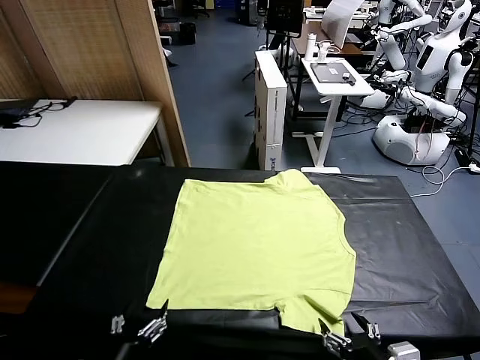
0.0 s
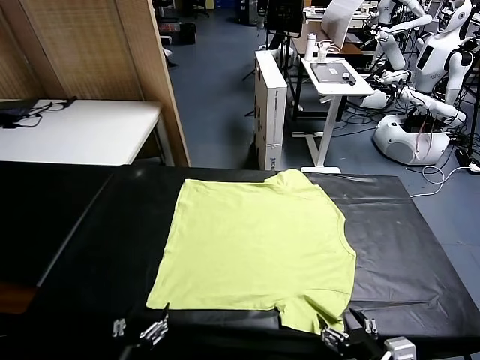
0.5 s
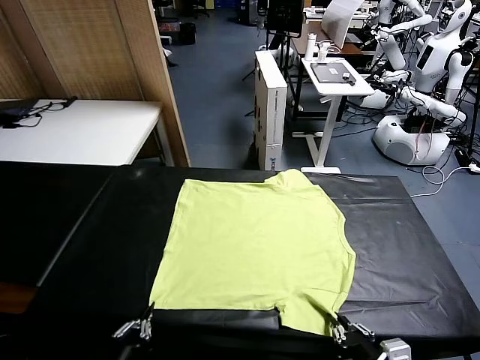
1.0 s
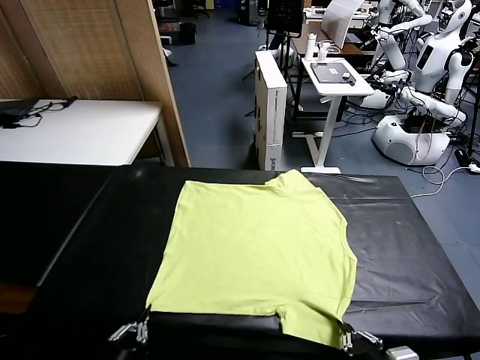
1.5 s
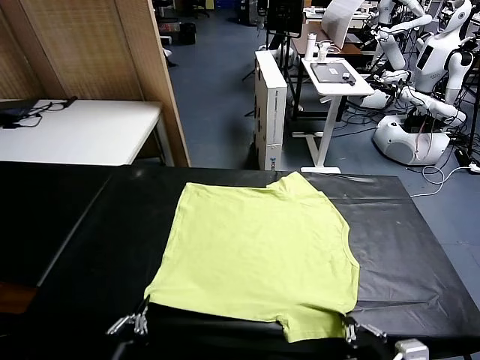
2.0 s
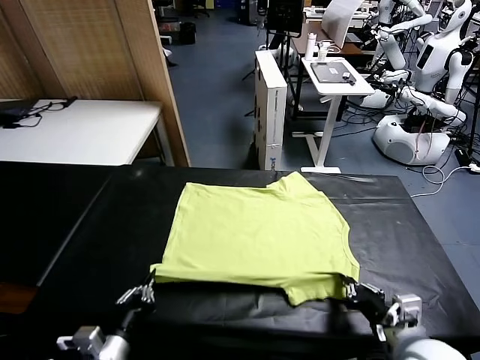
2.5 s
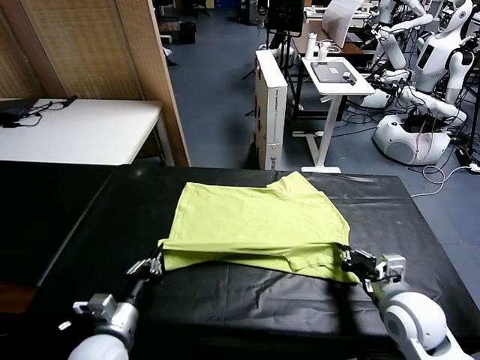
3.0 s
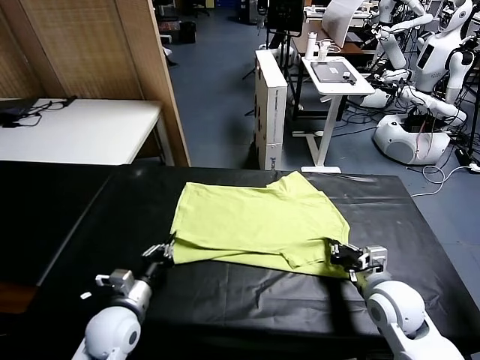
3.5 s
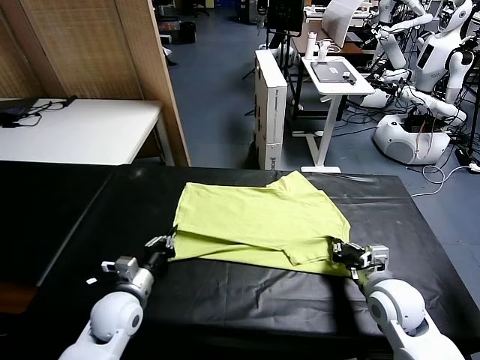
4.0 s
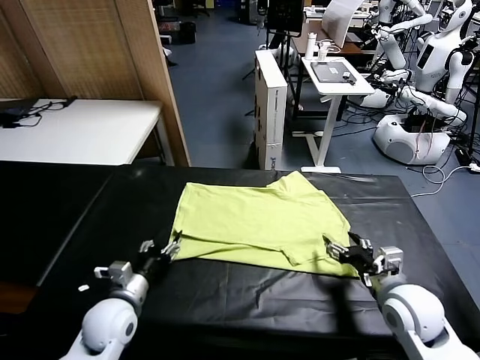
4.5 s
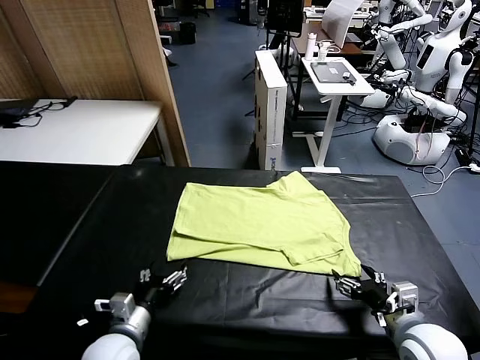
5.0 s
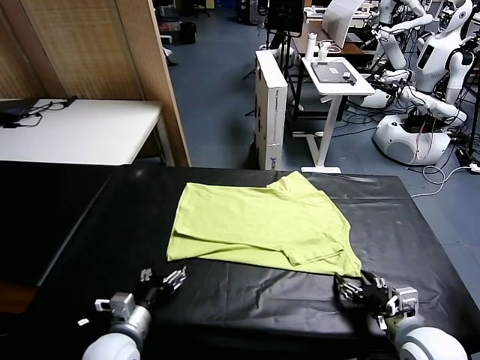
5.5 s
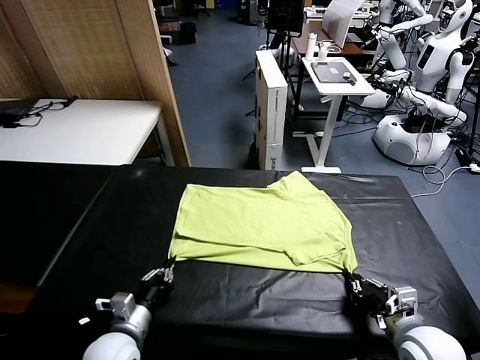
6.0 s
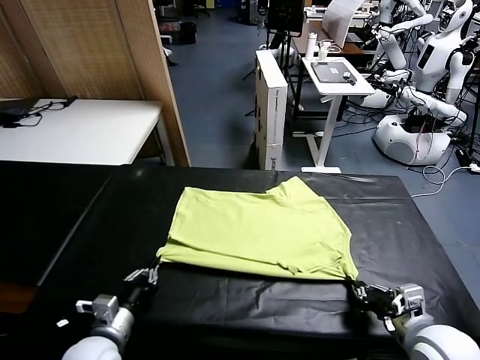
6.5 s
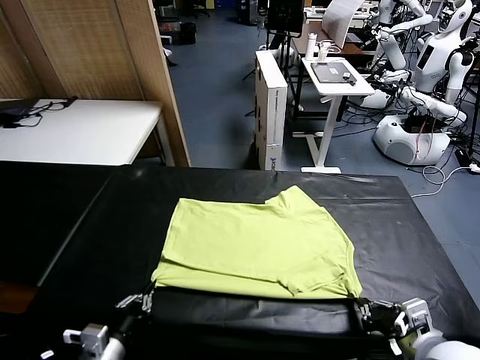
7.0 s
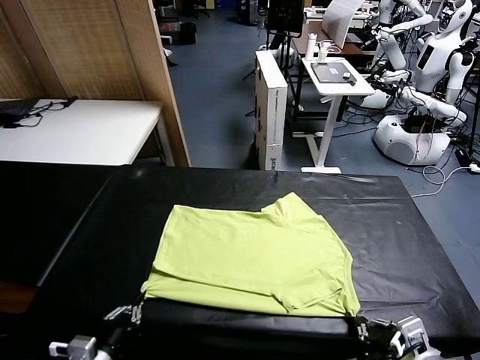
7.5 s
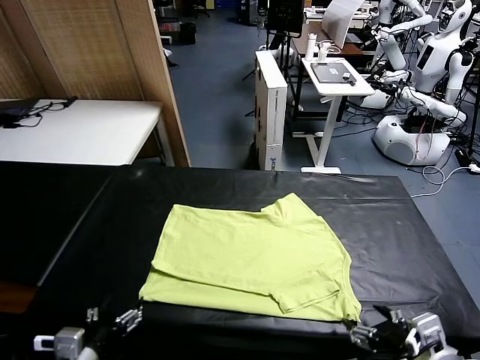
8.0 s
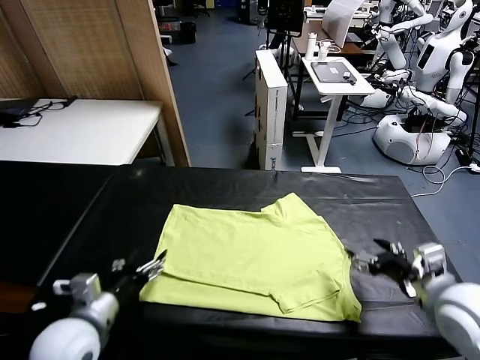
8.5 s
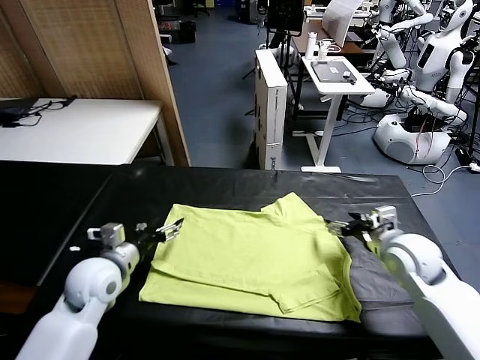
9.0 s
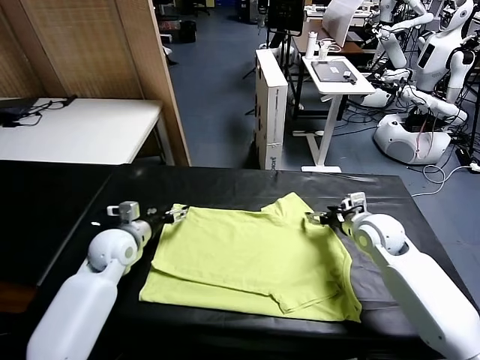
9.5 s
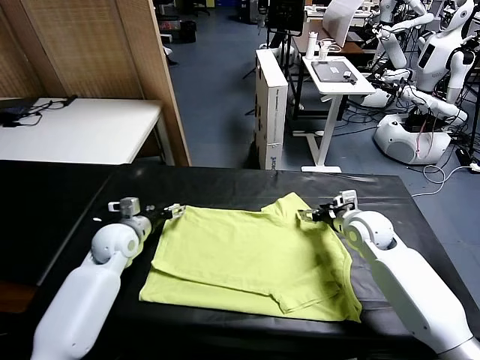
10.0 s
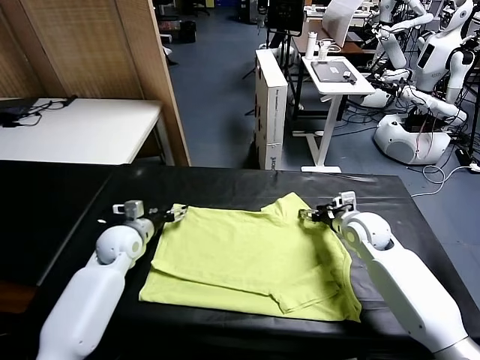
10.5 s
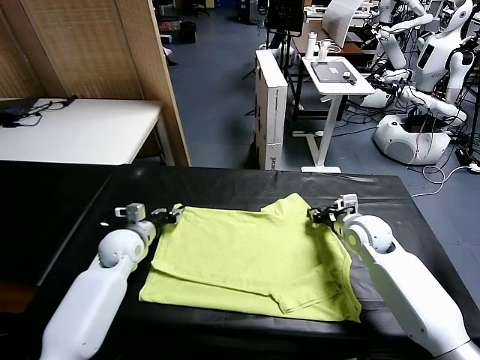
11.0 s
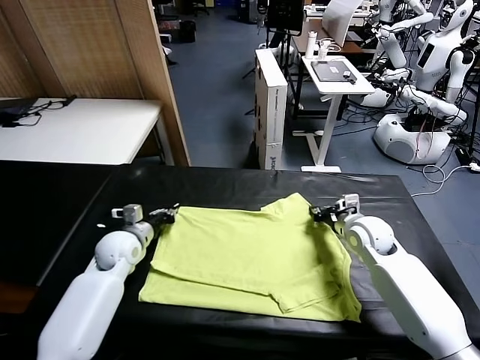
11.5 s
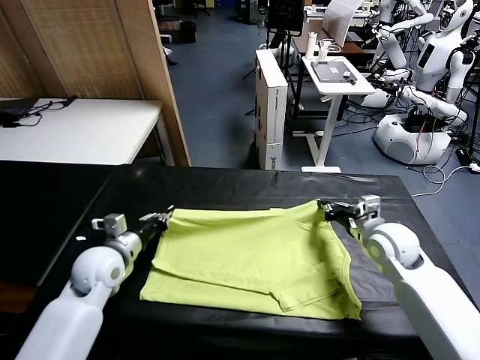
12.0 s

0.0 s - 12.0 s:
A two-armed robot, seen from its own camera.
Task of the whole recording: fold and organize the clothes.
Step, 0.0 s - 1.0 s: use both grippers simultaneously to clamp the lower edge of the clothing fabric.
Step, 1.5 s - 4.5 s: use both grippers to drag the lower edge of the fabric forward and fold it over the upper edge.
Step, 5.0 s - 8.0 s: Drag the clothes downward with both gripper.
Step, 8.5 s - 11.0 s: use both grippers simultaneously to clamp the upper edge of the clothing fabric.
2.0 s - 4.0 s: The two grippers go roughly 15 cm forward. The right gripper opens its fingers.
4.0 s - 6.0 s: Both grippers move backward, some 10 cm. The left gripper opens and closes again. The right gripper closes its fingers.
6.0 s - 8.0 s: The left gripper is displaced upward and backward by about 10 cm, and opens; the right gripper travels upward by roughly 10 cm, and opens its fingers.
8.0 s - 10.0 s: The grippers both shift forward by approximately 30 cm.
10.0 s - 12.0 s: The grippers both shift backward by roughly 10 cm. The right gripper closes up. The left gripper closes.

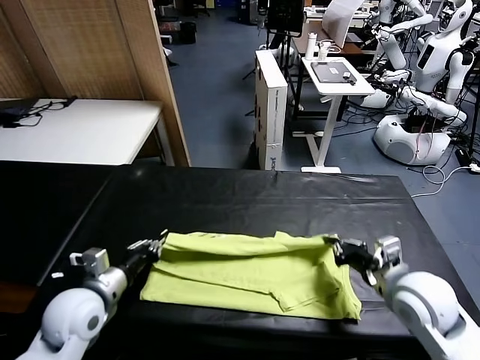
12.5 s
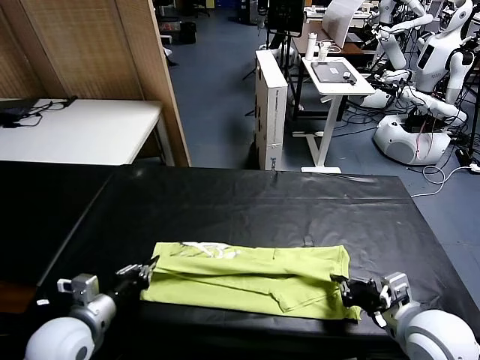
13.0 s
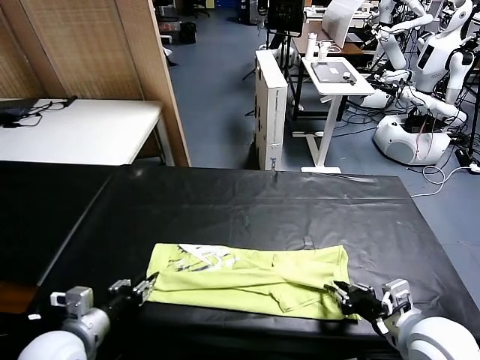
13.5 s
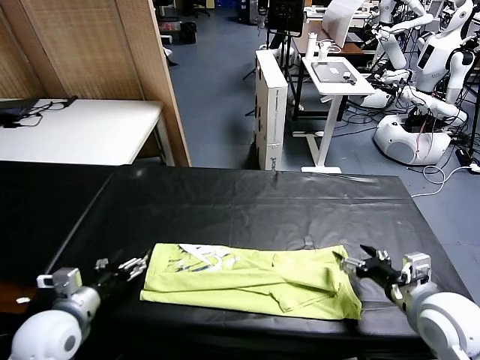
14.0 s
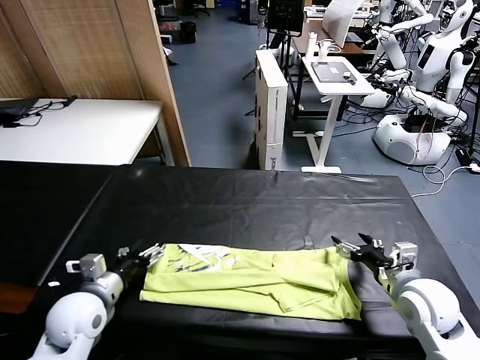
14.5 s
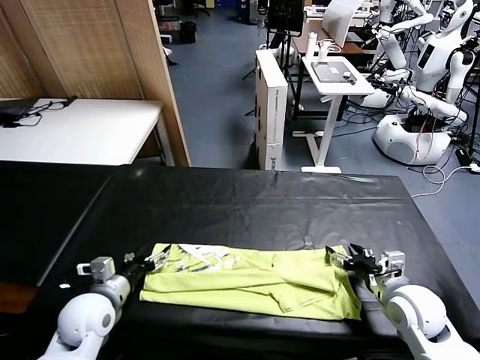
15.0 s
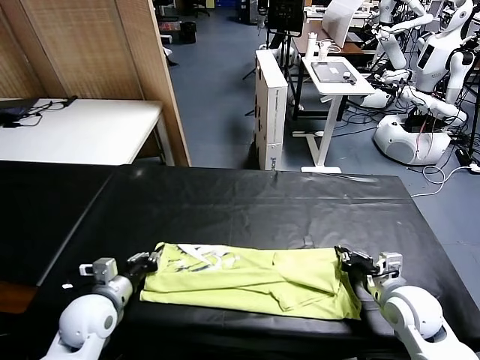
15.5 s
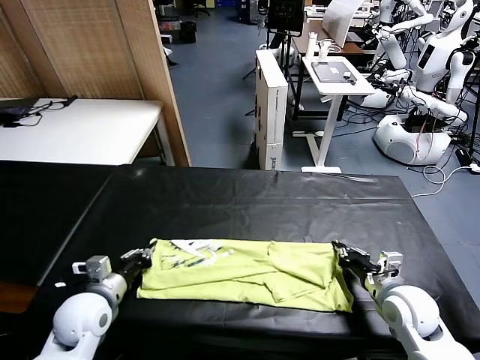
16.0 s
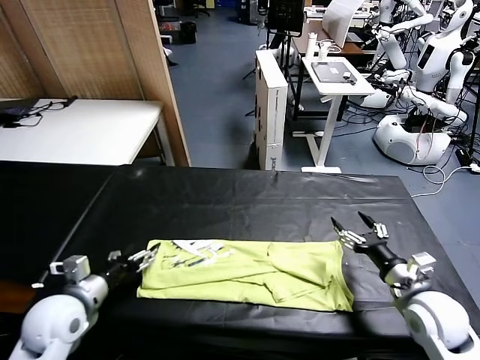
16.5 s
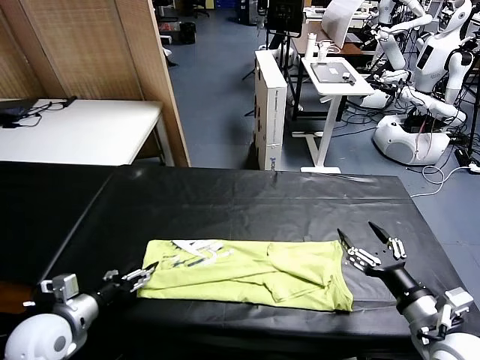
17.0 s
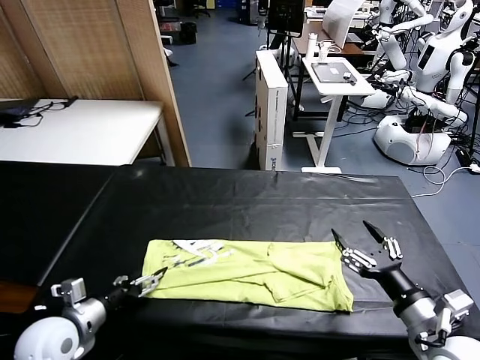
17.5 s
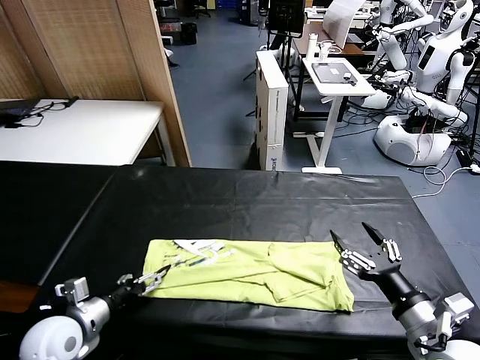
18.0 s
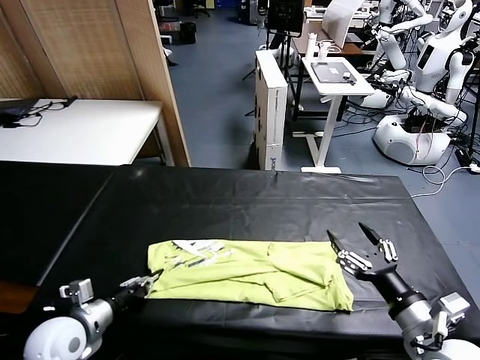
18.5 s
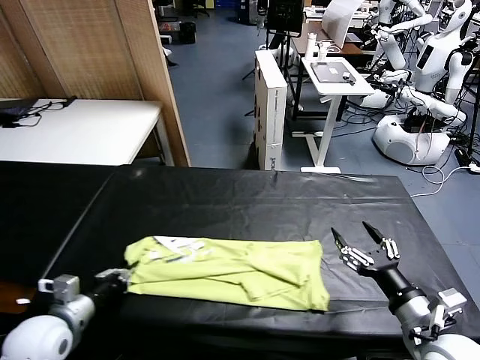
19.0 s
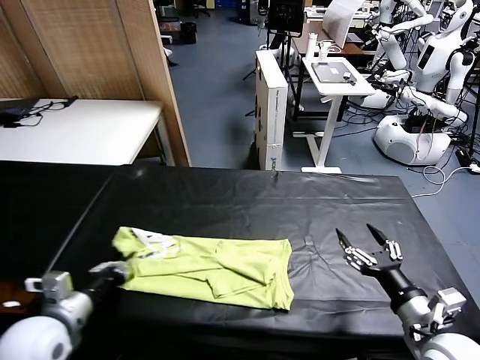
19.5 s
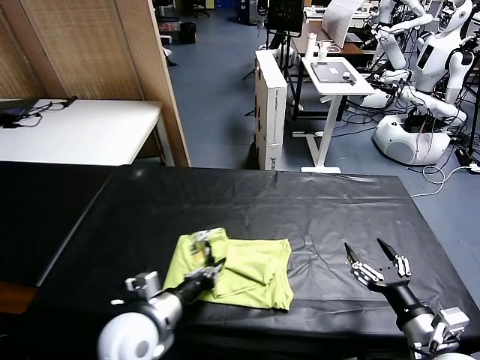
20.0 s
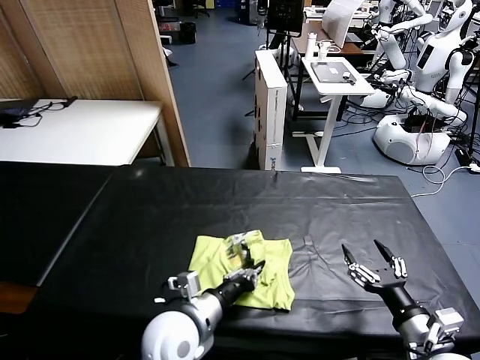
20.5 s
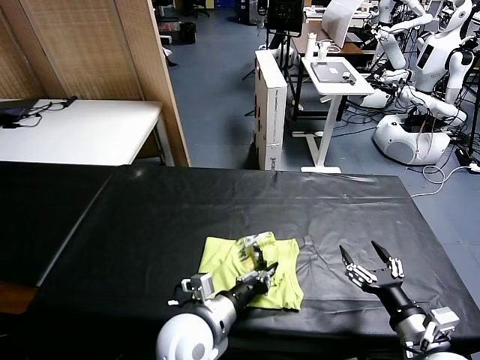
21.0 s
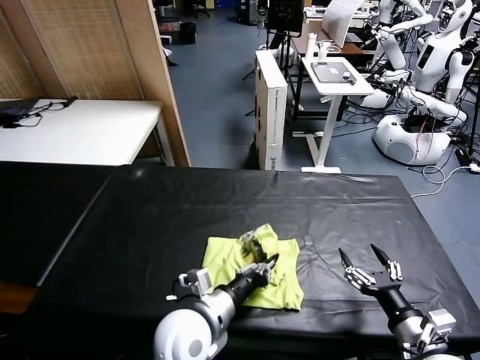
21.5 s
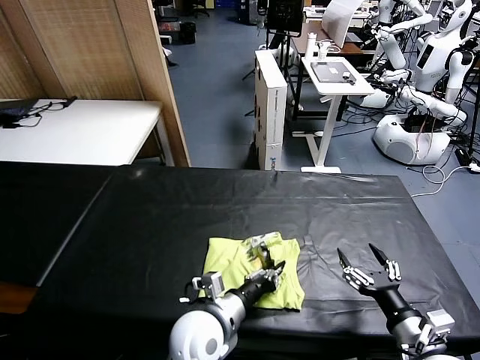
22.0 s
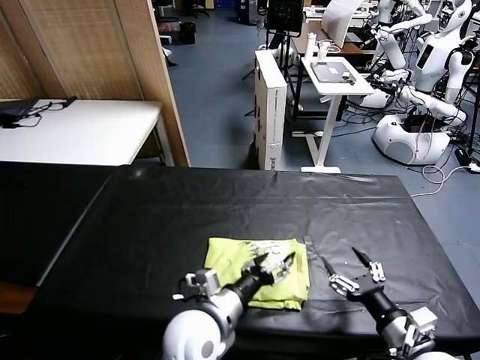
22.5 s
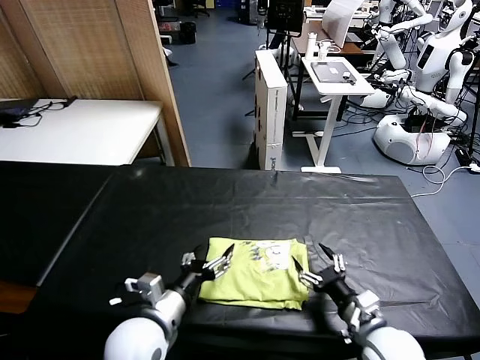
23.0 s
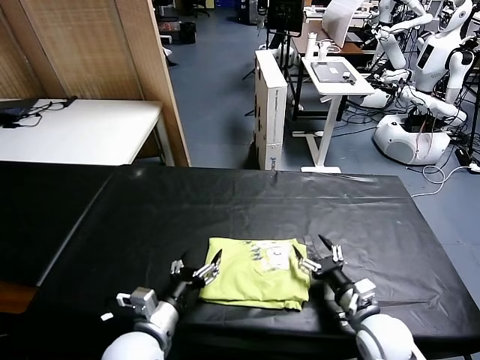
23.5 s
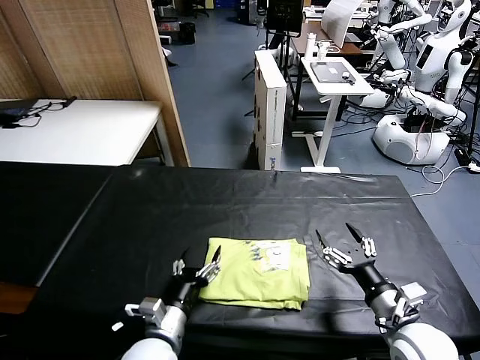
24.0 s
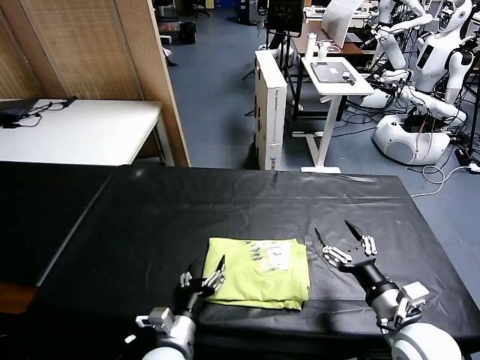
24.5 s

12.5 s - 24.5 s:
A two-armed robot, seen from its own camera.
Task of the whole recording: fold and organize the clothes.
Step, 14.0 s - 18.5 s: use the left gripper to clamp the left edge of the fabric.
Step, 19.0 s - 22.0 s: use the left gripper to drag the left edge of the fabric to the left and folds it over the right edge.
12.5 s - 14.5 s: The right gripper travels downward by approximately 5 cm, and opens its fingers. The left gripper reaches about 5 cm backward, then returns, and opens.
14.5 s - 16.5 s: The right gripper moves some 5 cm, and closes and opens again. Meanwhile the left gripper closes, then reopens.
16.5 s - 18.5 s: The left gripper closes its fingers; the right gripper is displaced backward by some 5 cm.
18.5 s - 20.5 s: The left gripper travels to the right by approximately 25 cm.
20.5 s - 22.5 s: The left gripper opens.
22.5 s - 24.5 s: The left gripper moves downward and to the left, roughly 10 cm.

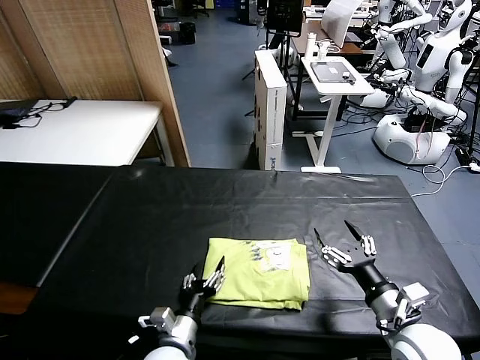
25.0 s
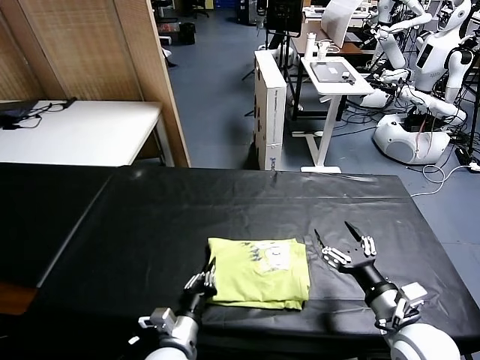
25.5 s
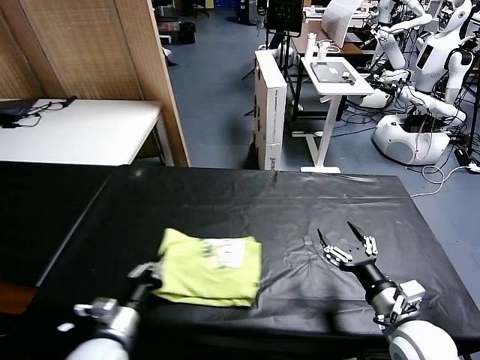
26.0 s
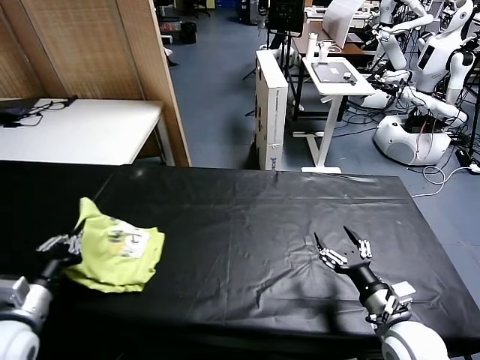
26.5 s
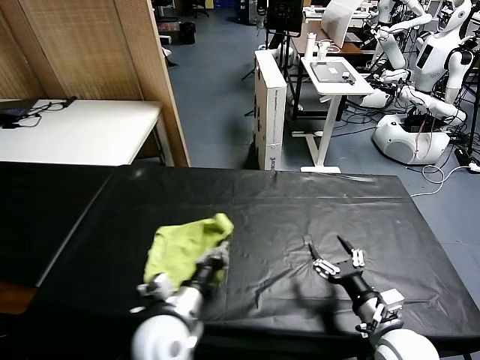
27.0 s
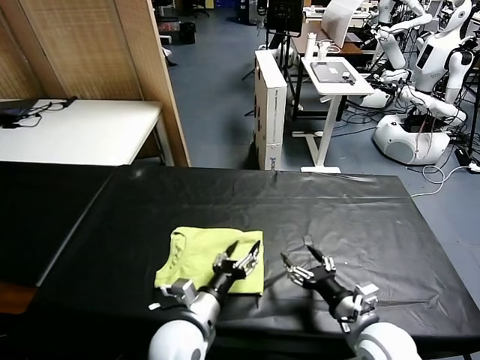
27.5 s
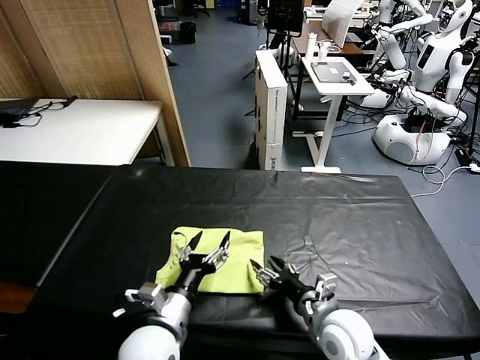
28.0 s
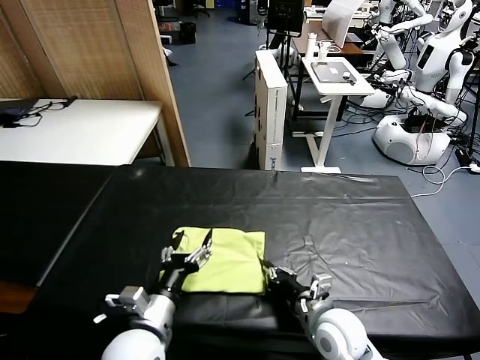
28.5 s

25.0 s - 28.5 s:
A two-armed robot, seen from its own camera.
Task of the whole recording: fold and organize the clothes.
Step, 25.0 s - 27.5 s: Flip the folded clothes over with left gripper.
25.0 s - 27.0 s: The left gripper moves upward, some 10 cm, travels to the left and back again, some 25 cm each way, and closes its fingers.
27.0 s - 28.5 s: The left gripper opens up. Meanwhile the right gripper heads to the left, covering approximately 10 cm, and closes.
